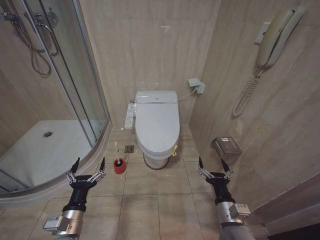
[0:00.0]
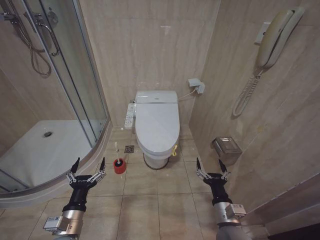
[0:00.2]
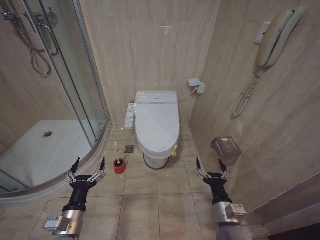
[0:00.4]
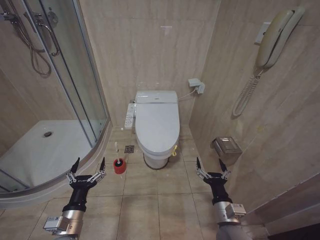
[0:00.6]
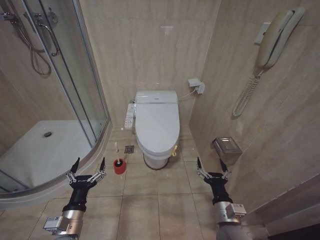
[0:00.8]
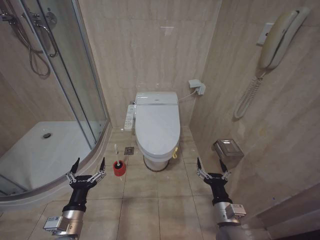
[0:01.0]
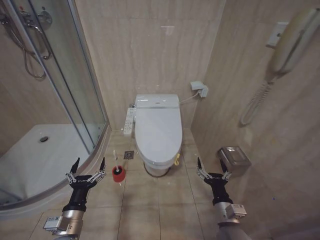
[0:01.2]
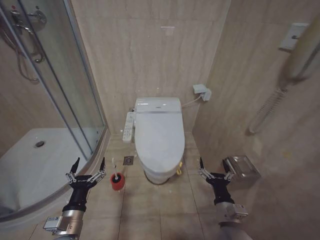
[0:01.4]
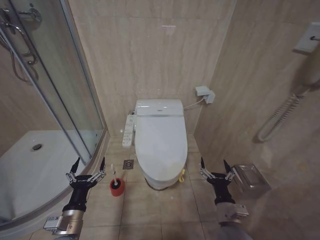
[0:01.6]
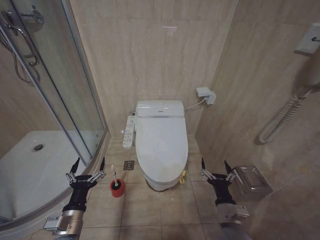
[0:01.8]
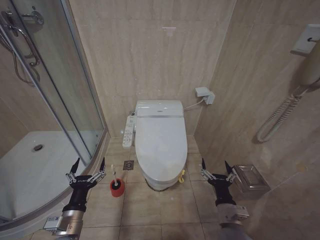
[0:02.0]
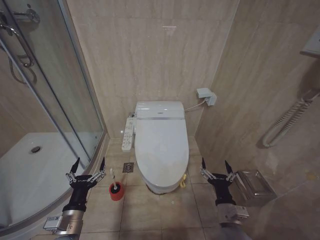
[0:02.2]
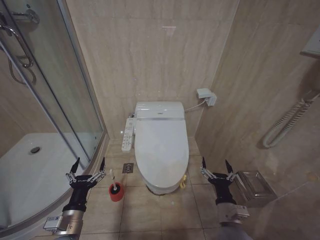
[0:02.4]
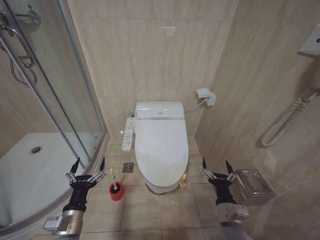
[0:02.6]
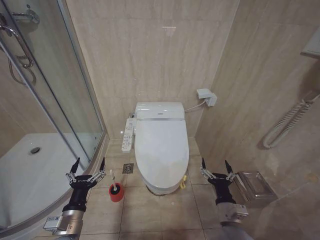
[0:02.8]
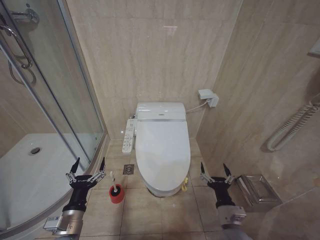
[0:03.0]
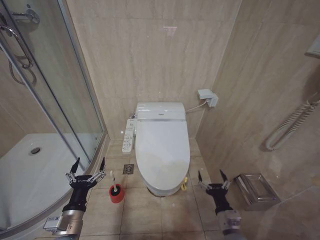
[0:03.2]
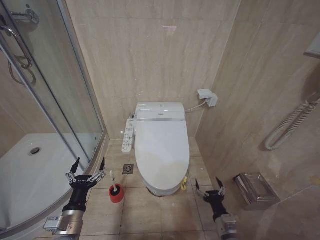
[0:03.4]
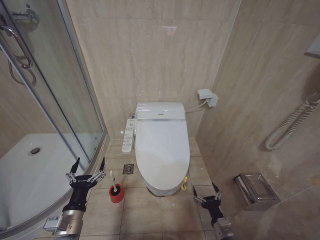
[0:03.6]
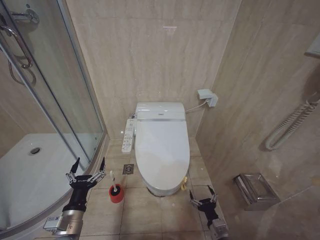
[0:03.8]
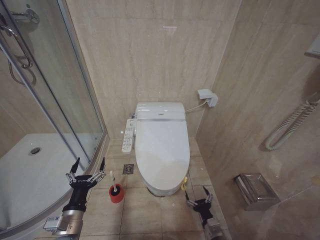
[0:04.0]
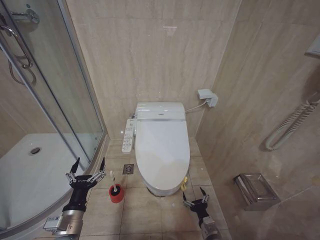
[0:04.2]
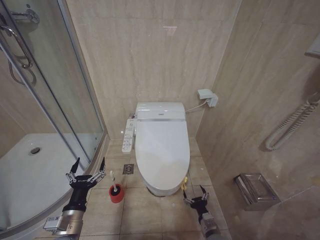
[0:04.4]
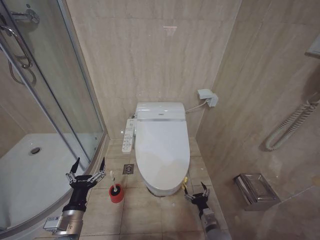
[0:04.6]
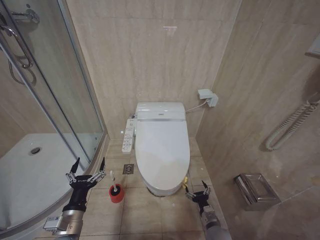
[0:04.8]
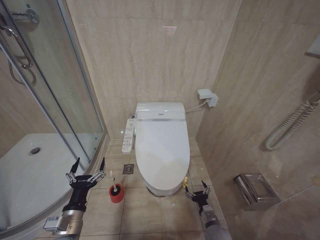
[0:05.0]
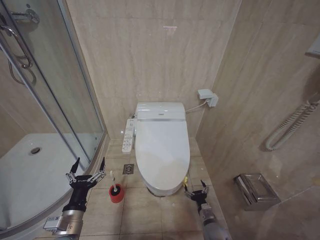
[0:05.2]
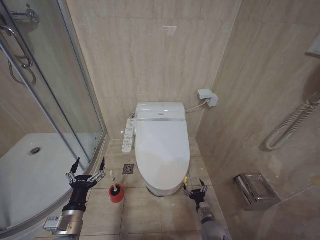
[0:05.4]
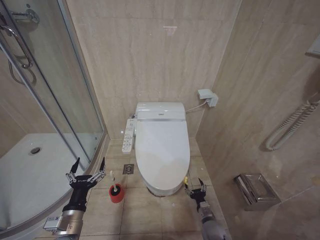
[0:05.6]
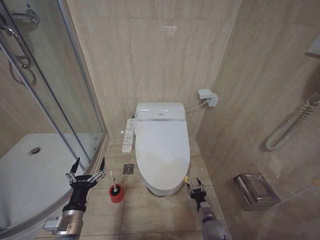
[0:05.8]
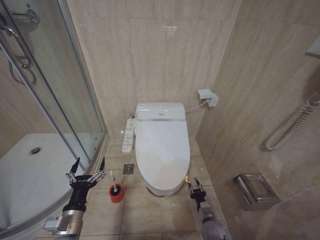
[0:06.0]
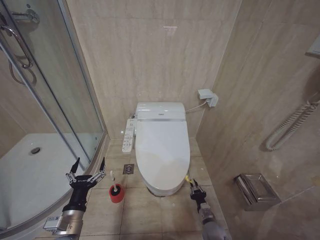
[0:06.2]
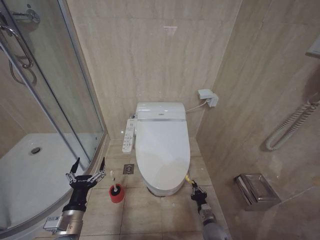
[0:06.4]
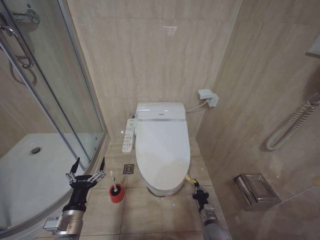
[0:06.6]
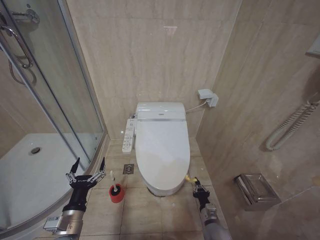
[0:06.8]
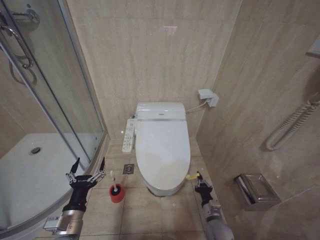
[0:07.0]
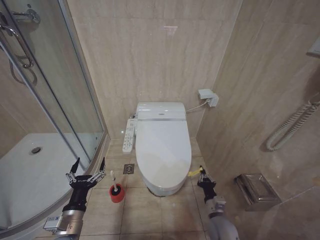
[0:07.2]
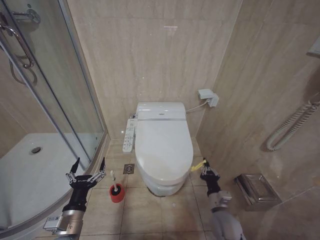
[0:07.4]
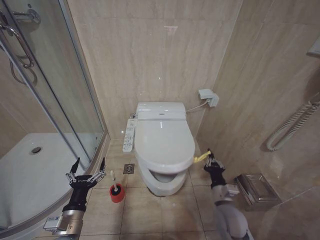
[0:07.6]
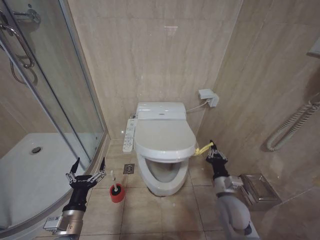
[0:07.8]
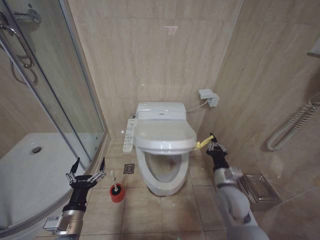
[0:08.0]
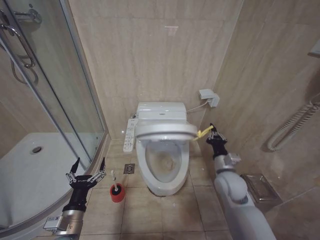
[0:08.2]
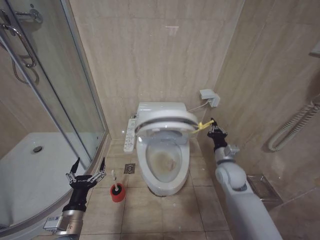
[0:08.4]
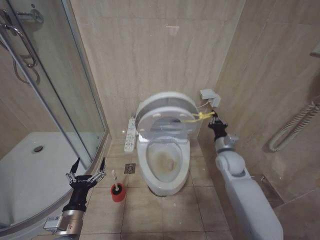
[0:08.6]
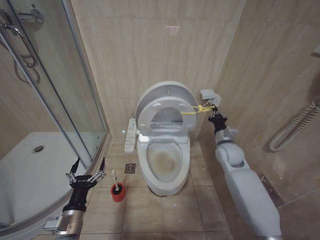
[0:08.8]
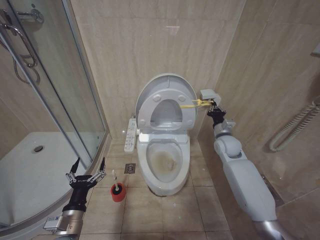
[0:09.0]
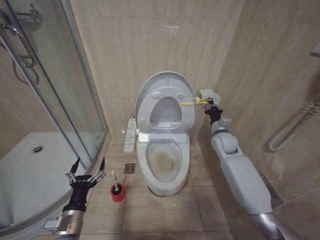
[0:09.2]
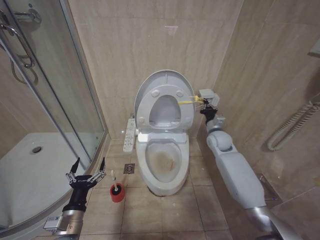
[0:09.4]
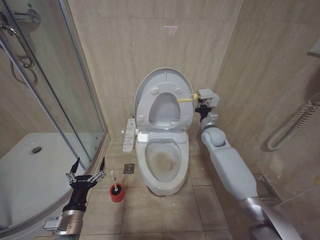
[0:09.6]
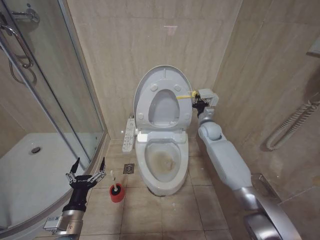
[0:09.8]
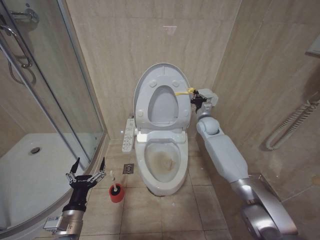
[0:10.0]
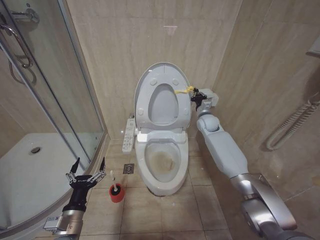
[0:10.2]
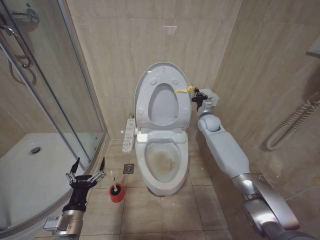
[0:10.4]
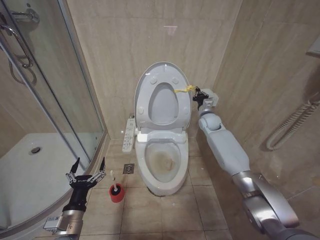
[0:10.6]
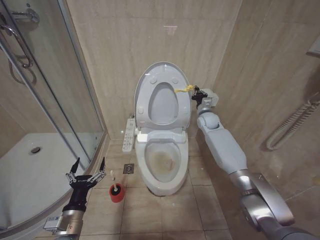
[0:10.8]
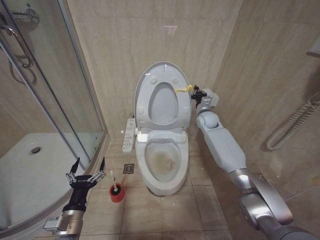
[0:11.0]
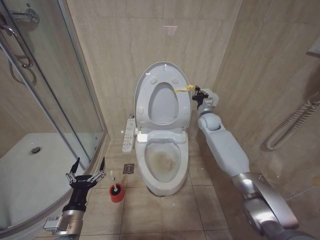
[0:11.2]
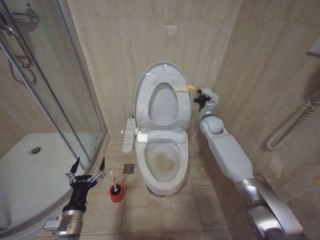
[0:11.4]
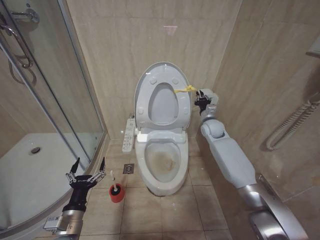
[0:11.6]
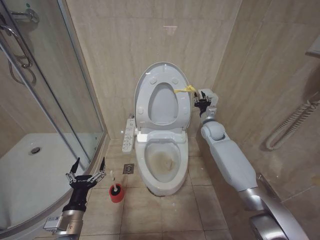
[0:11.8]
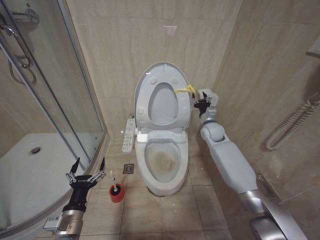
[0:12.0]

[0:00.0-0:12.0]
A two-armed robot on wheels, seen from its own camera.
Task of the whole recording: Open the toilet lid, clean the toilet bowl with a toilet brush, close the toilet lid, and flush.
0:01.6 to 0:03.0: There are only small adjustments of the grippers.
0:03.0 to 0:04.4: The right gripper travels downward by some 15 cm.
0:04.4 to 0:06.0: The right gripper heads forward, covering approximately 5 cm.
0:06.0 to 0:07.6: The right gripper shifts about 15 cm upward, and closes up.
0:07.6 to 0:09.0: The right gripper heads forward and upward, covering about 25 cm.
0:09.0 to 0:10.4: The right gripper is displaced forward by some 15 cm.
0:10.4 to 0:12.0: The right gripper opens its fingers.

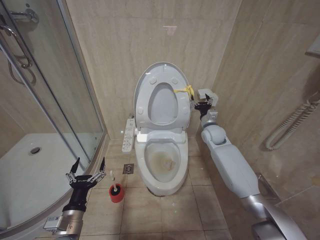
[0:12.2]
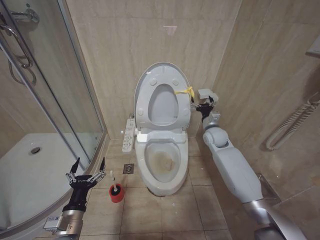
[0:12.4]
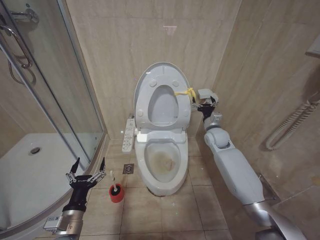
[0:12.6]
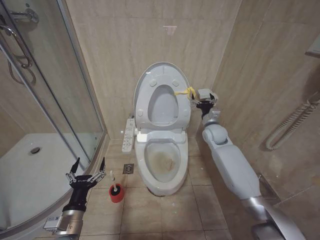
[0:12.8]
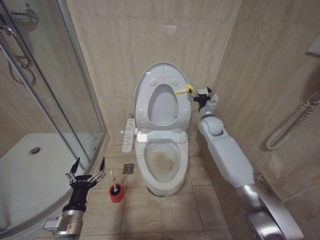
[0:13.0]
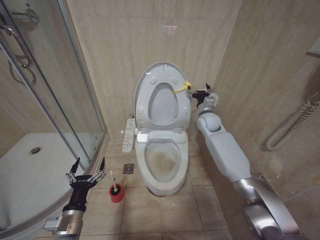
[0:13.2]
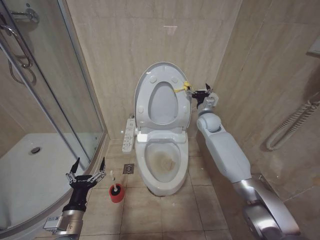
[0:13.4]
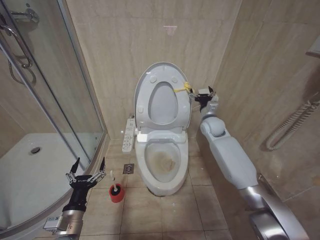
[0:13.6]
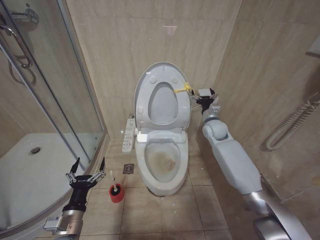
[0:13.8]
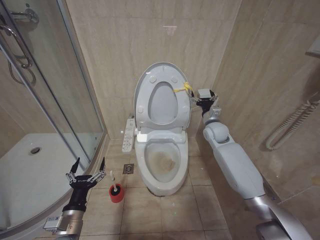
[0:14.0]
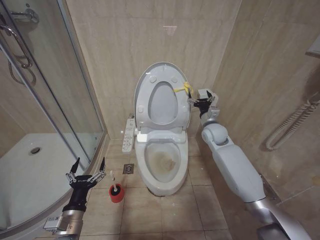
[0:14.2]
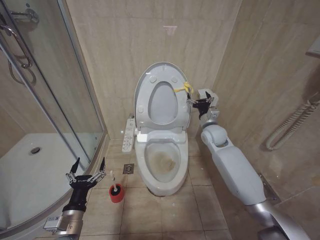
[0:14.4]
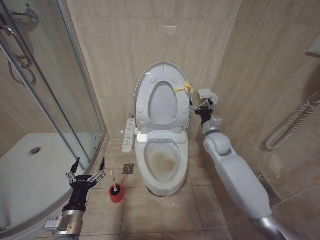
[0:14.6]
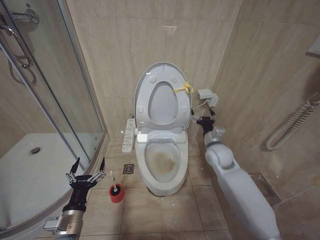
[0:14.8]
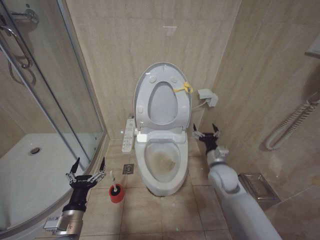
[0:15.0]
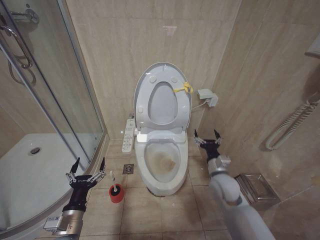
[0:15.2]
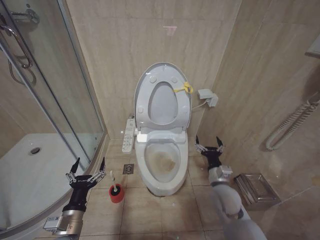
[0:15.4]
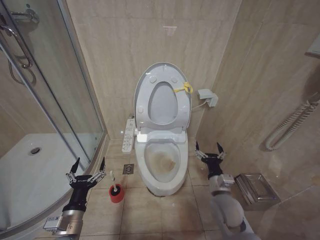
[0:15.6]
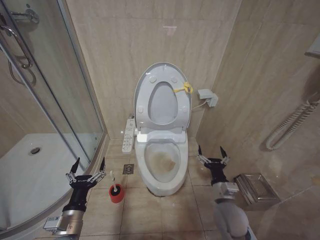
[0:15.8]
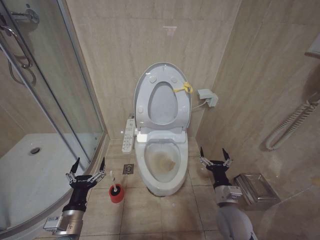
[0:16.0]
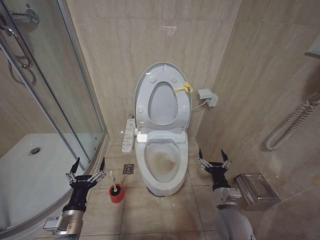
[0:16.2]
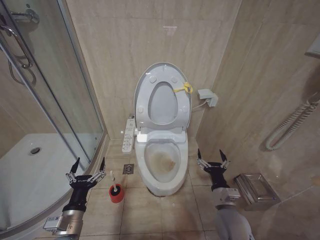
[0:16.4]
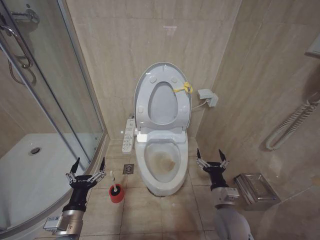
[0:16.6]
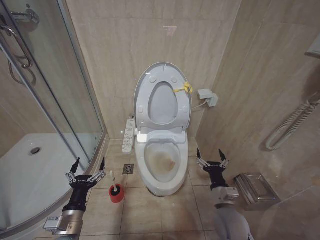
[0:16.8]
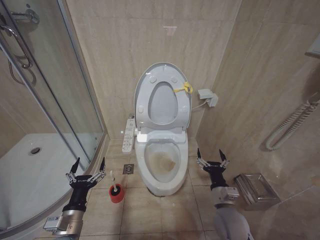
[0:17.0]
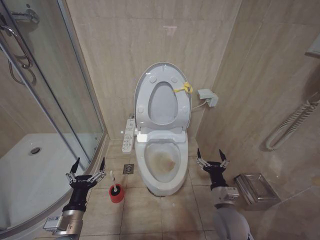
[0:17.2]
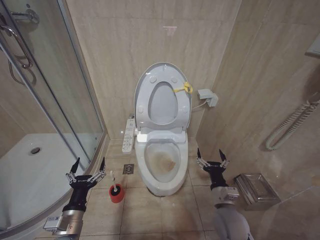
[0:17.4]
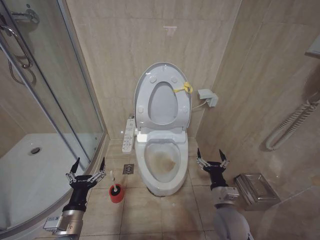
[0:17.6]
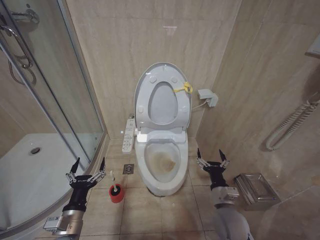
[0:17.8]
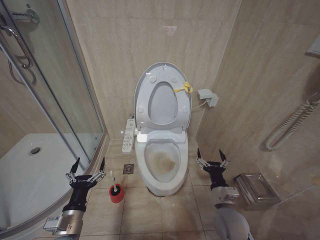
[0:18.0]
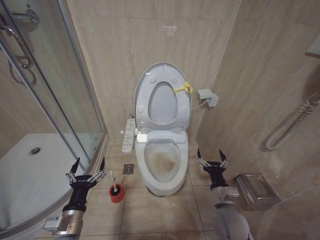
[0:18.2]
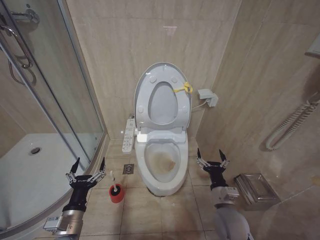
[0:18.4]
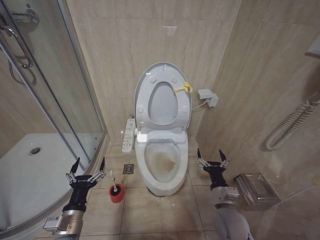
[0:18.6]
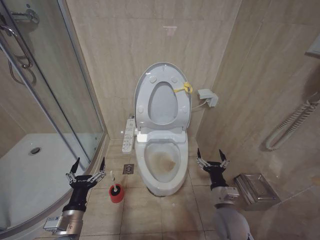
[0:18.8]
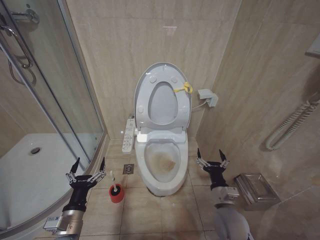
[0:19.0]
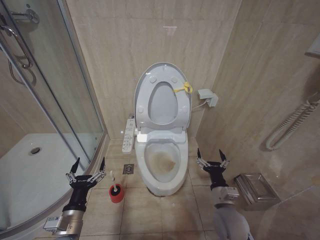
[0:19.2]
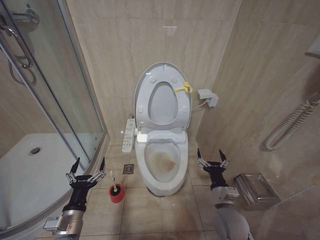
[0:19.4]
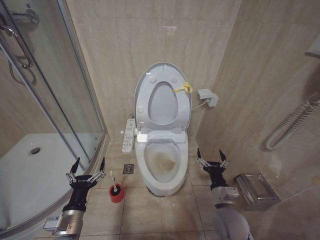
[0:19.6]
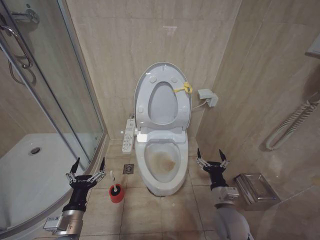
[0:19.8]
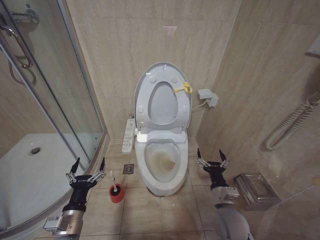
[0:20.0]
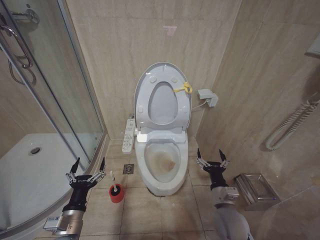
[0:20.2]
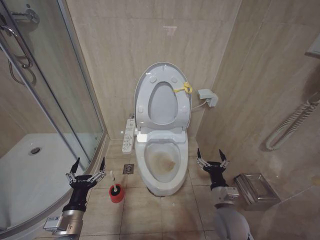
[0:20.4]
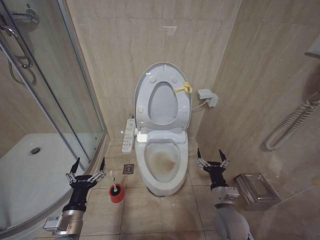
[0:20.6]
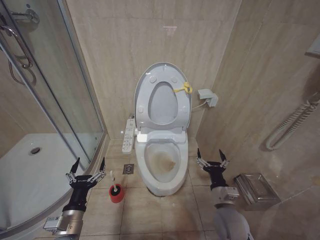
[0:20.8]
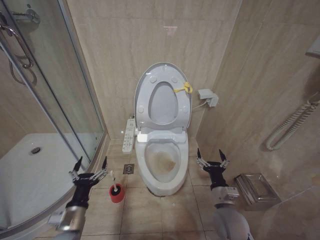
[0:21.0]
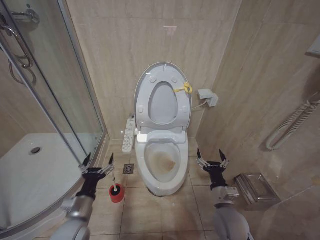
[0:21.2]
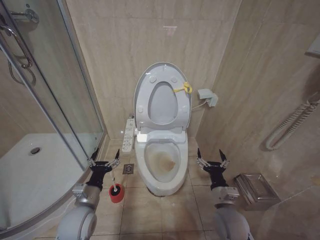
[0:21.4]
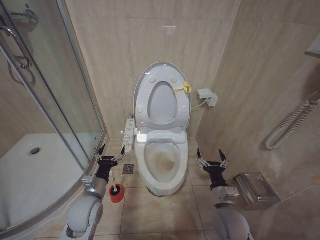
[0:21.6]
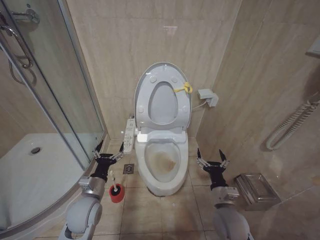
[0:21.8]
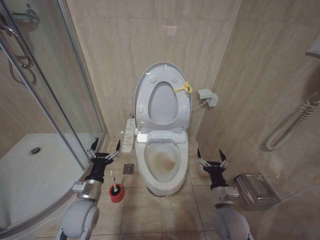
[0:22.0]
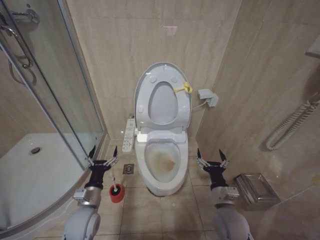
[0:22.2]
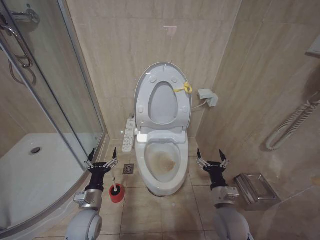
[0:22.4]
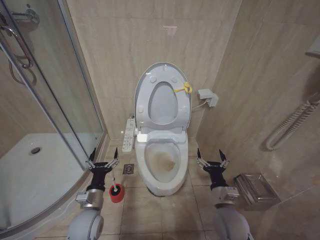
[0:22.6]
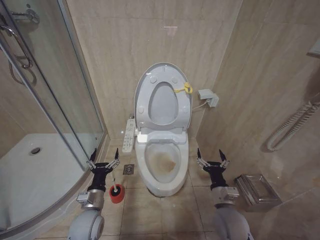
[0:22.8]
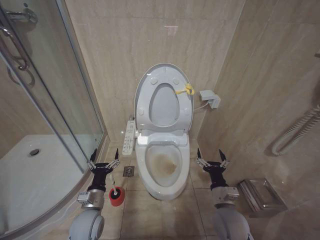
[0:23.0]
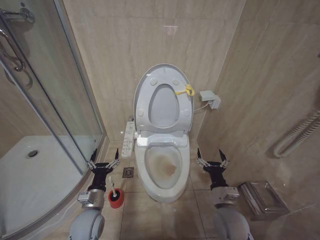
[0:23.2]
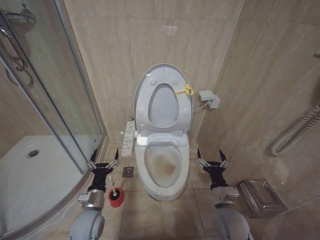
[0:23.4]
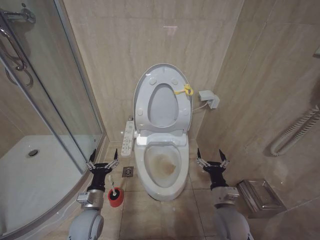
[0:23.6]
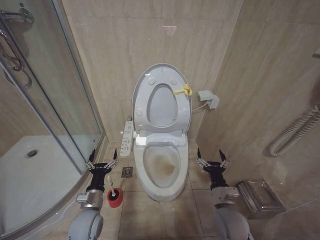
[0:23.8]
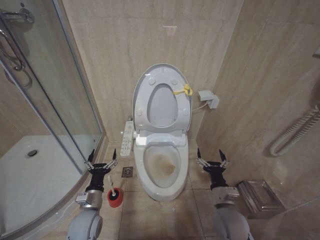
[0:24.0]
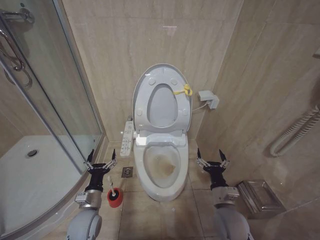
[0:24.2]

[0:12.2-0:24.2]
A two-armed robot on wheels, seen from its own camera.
Task of the whole recording: Open the toilet lid, clean the toilet bowl with a toilet brush, close the toilet lid, and flush.
0:12.2 to 0:13.8: The grippers stay close to where they were, moving slightly.
0:13.8 to 0:15.2: The right gripper goes approximately 20 cm backward and downward.
0:15.2 to 0:16.6: The right gripper is displaced backward by about 10 cm.
0:16.6 to 0:19.8: Both grippers stay about where they are.
0:19.8 to 0:21.2: The grippers make only small movements.
0:21.2 to 0:22.6: The left gripper goes about 5 cm forward.
0:22.6 to 0:24.2: There are only small adjustments of the grippers.
